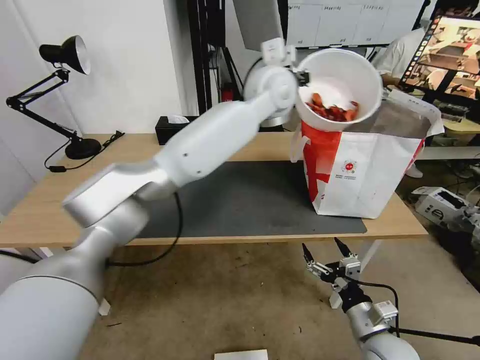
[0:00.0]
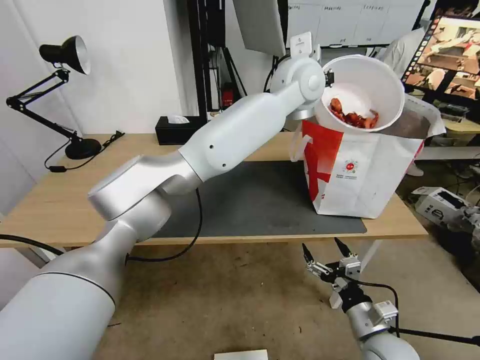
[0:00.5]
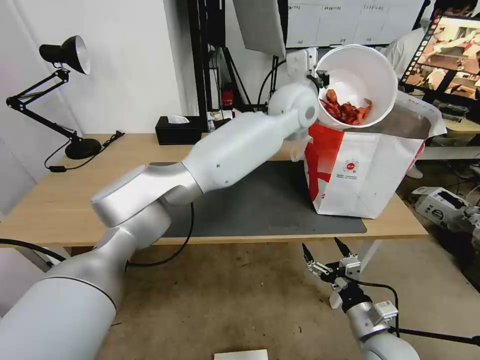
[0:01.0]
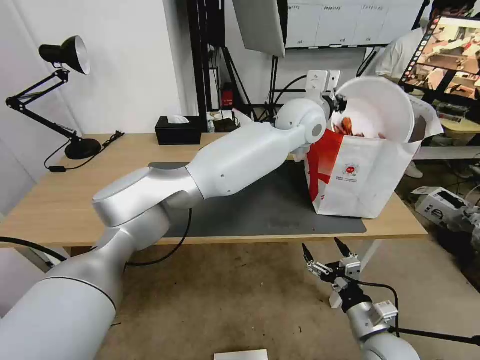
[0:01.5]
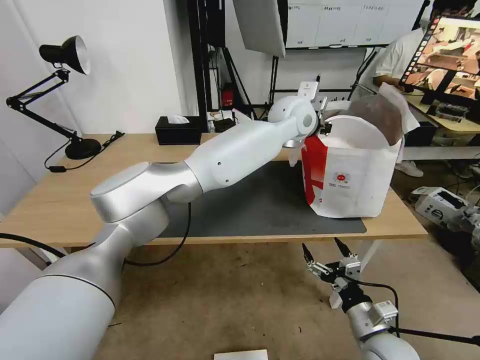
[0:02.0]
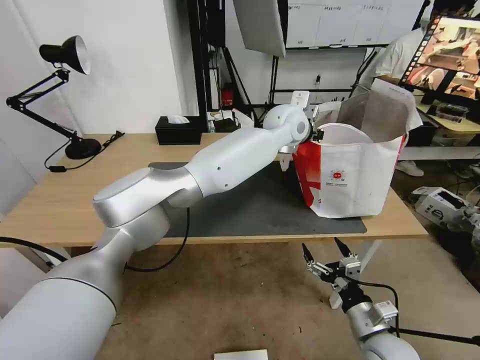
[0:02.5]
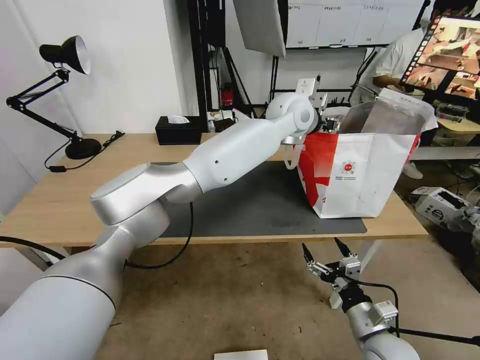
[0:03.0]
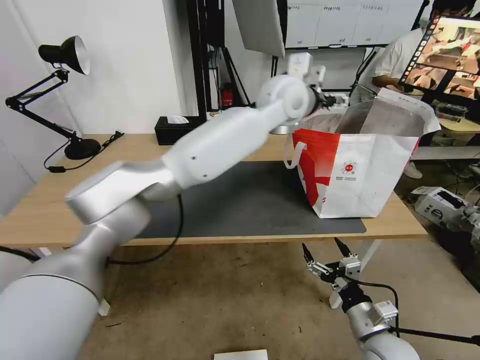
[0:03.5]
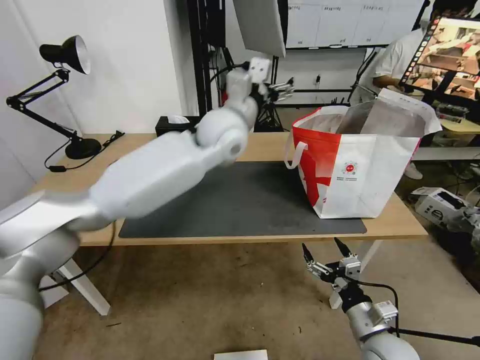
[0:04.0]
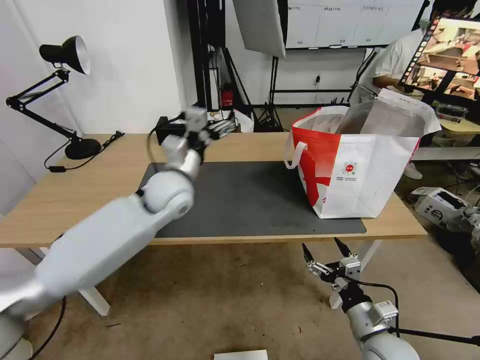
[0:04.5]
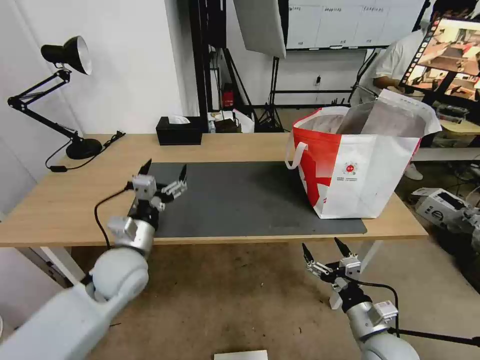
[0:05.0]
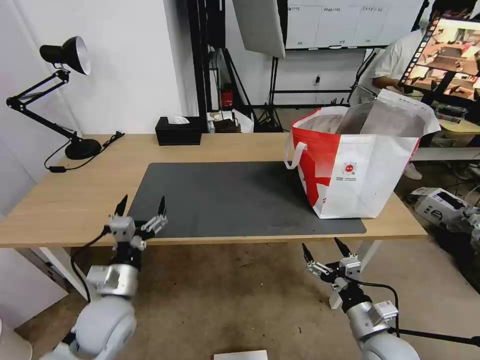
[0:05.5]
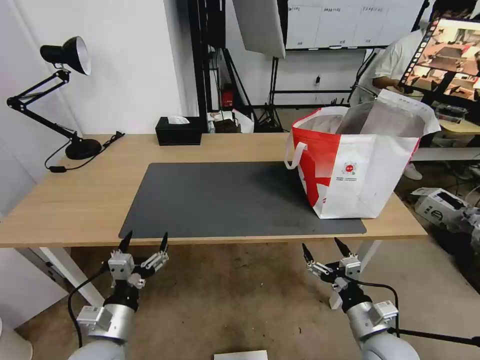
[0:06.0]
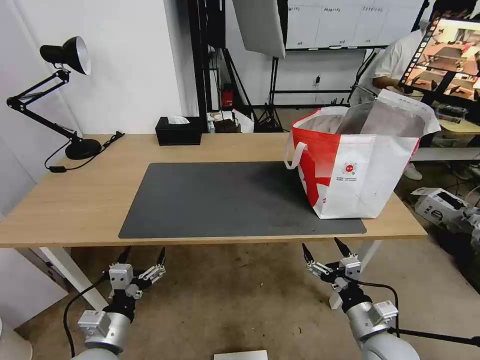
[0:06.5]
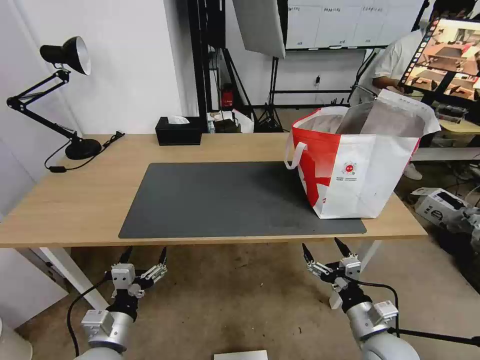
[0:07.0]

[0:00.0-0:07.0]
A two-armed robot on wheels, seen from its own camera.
Task of the whole recording: Pick up the trash from the table and place it into the takeout bag.
0:00.0 to 0:02.0: The left gripper moves downward and to the right, approximately 10 cm.
0:02.0 to 0:03.5: The left gripper changes place by some 5 cm, and opens its fingers.
0:03.5 to 0:05.0: The left gripper goes about 50 cm to the left, downward and backward.
0:05.0 to 0:07.0: The left gripper shifts about 20 cm backward and downward.

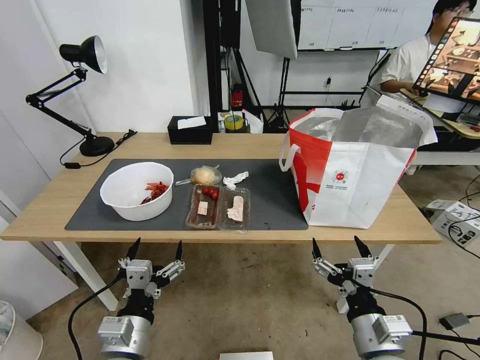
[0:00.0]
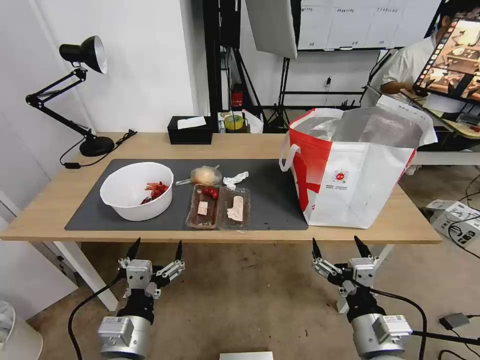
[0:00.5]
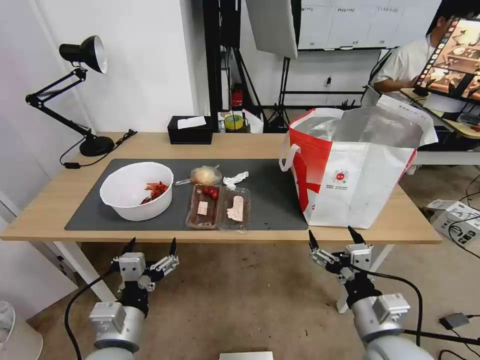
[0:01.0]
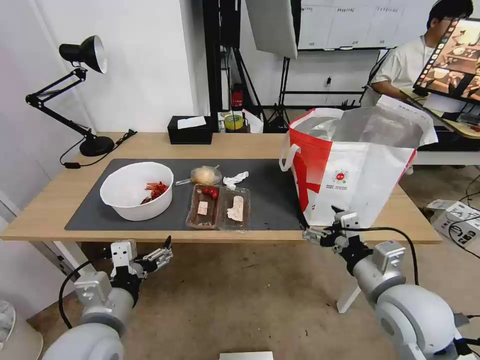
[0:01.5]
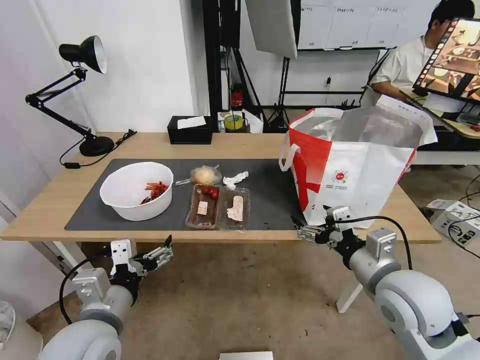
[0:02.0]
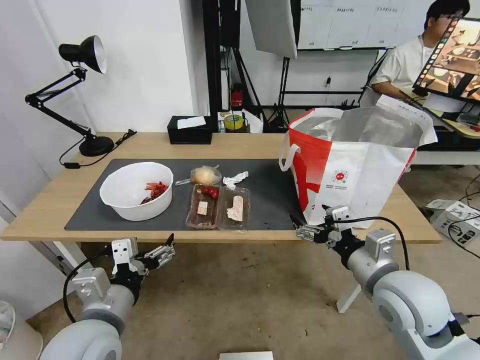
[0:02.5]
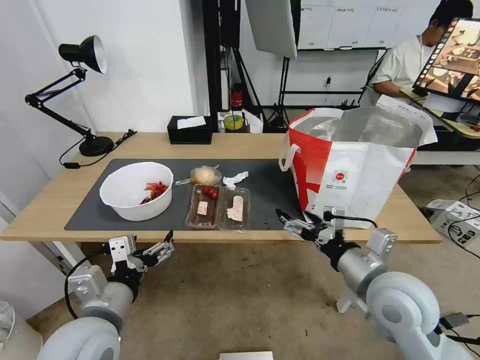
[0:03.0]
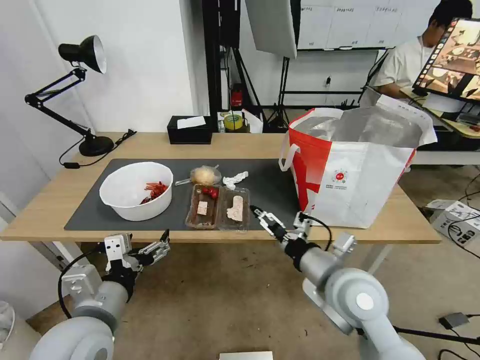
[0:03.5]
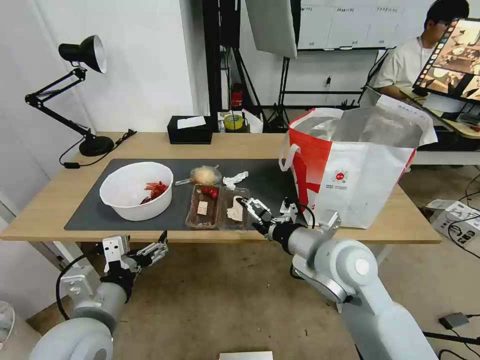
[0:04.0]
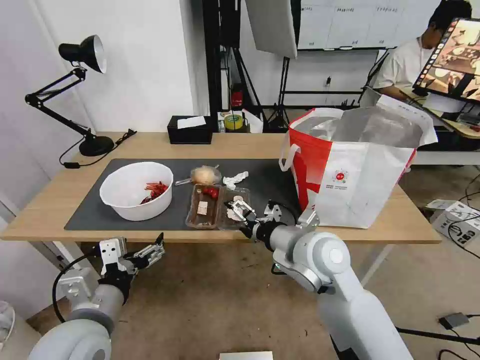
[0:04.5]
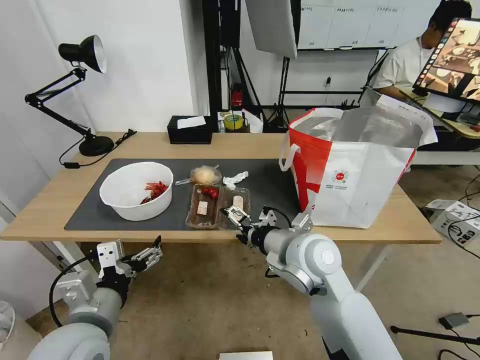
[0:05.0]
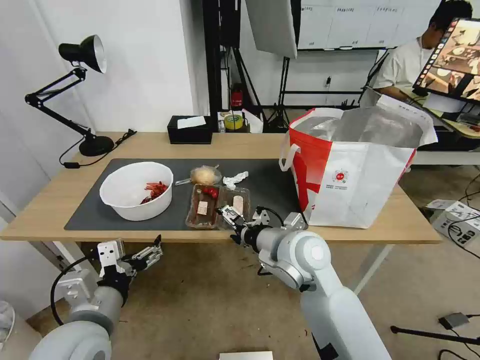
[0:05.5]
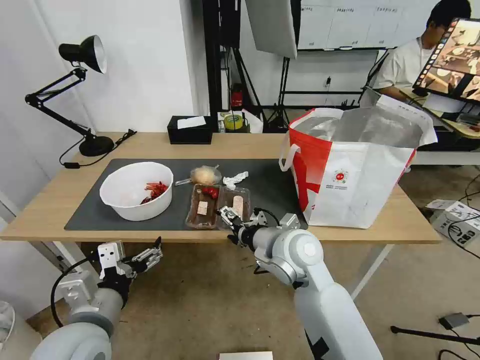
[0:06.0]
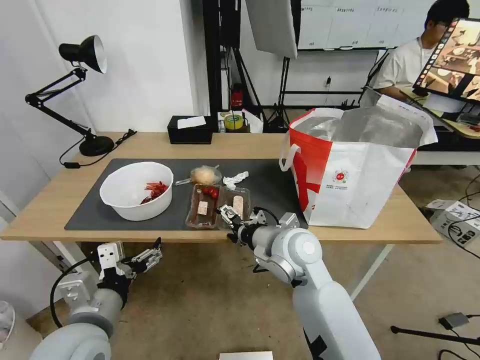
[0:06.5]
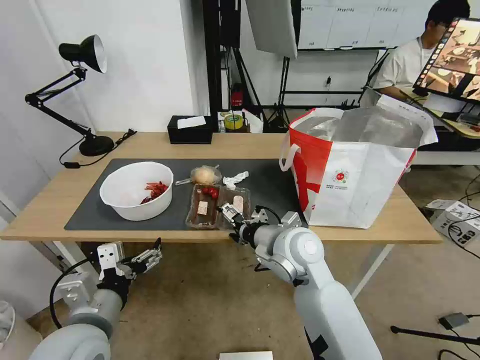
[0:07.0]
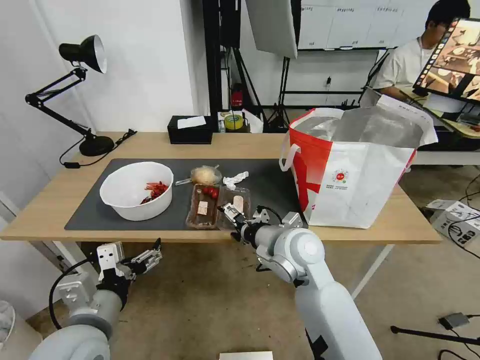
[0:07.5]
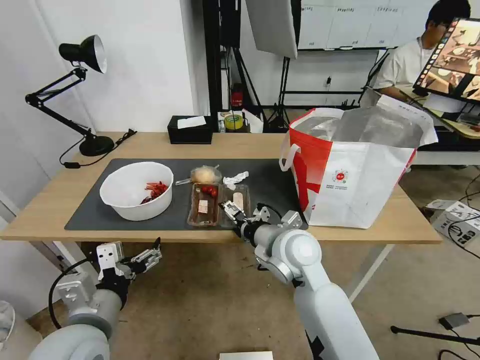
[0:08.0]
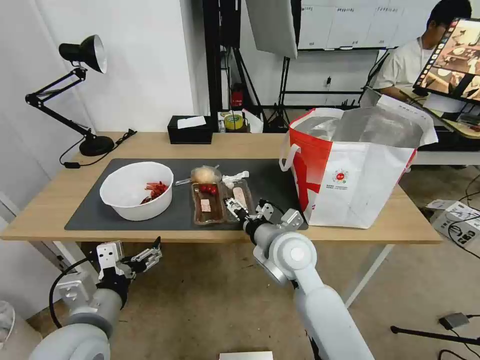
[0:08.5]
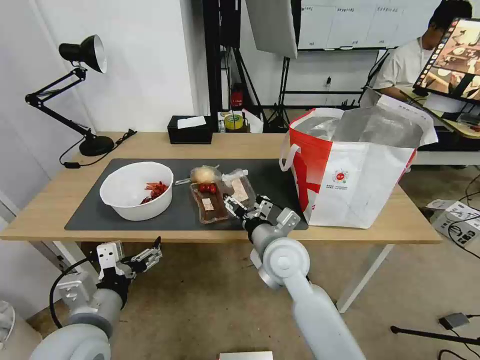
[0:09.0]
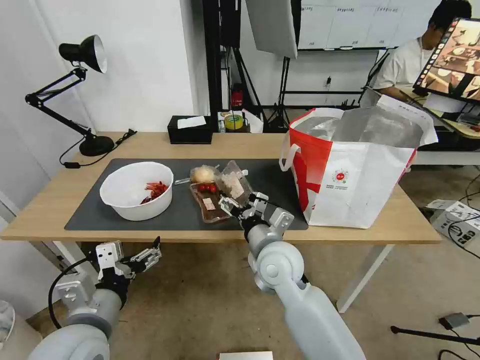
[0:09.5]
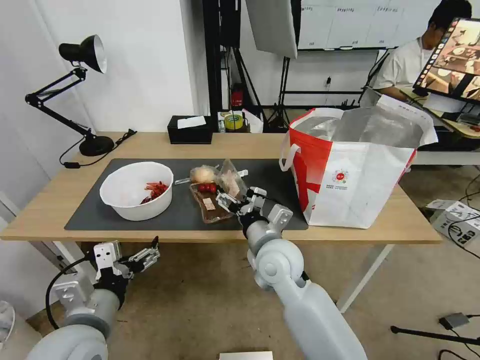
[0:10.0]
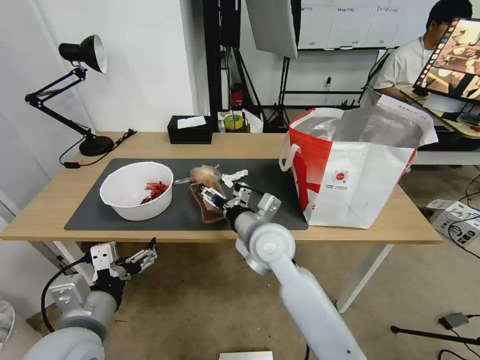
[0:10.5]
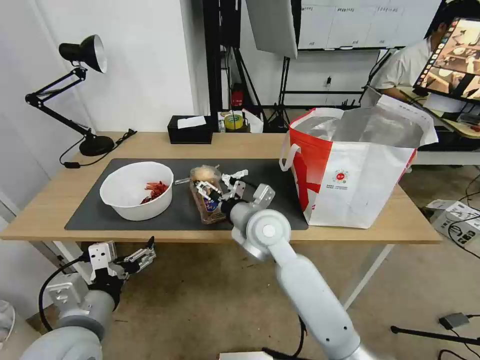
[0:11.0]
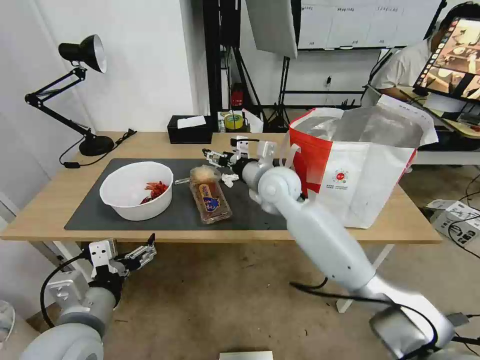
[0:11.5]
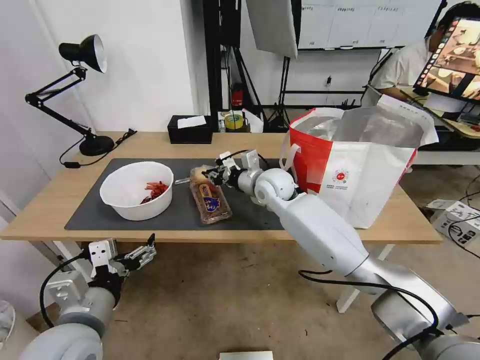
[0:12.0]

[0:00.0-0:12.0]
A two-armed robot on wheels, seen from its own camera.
Task of the whole recording: Pick up the trash from the table and place it into the takeout bag.
0:02.0 to 0:04.0: The right gripper shifts roughly 10 cm to the left and forward.
0:04.0 to 0:06.0: The right gripper heads to the left, covering about 5 cm.
0:06.0 to 0:08.0: There are only small adjustments of the grippers.
0:10.0 to 0:12.0: The right gripper goes approximately 20 cm forward, and closes its fingers.

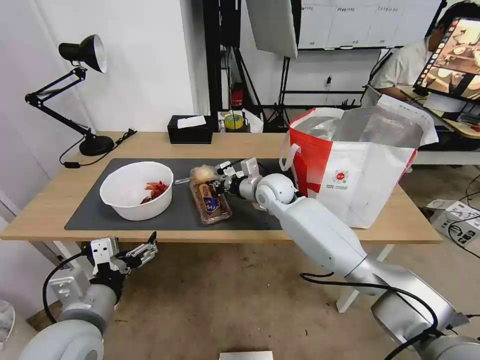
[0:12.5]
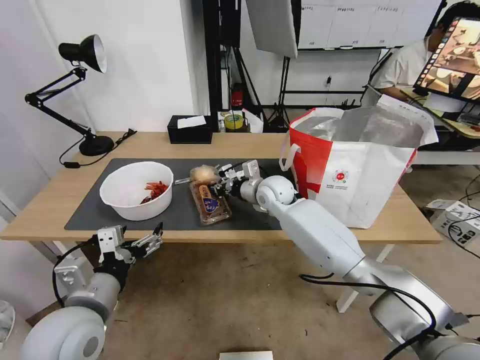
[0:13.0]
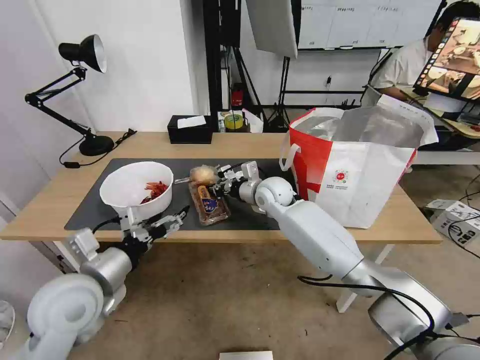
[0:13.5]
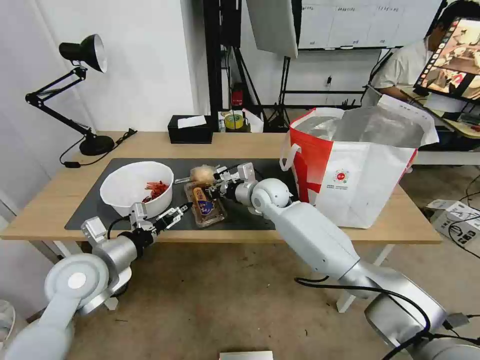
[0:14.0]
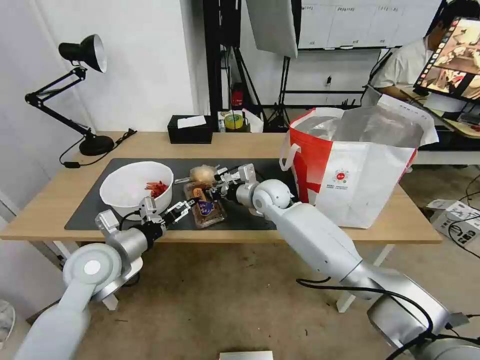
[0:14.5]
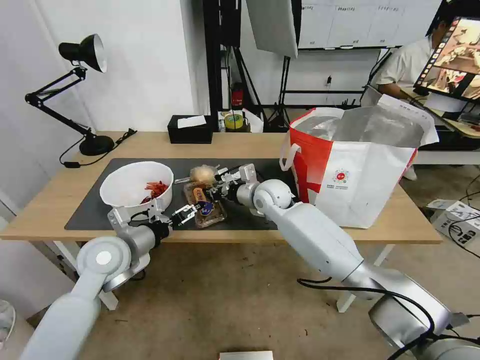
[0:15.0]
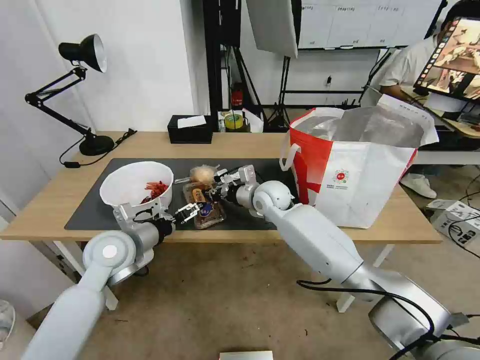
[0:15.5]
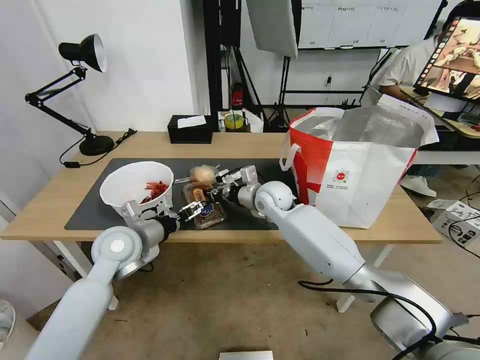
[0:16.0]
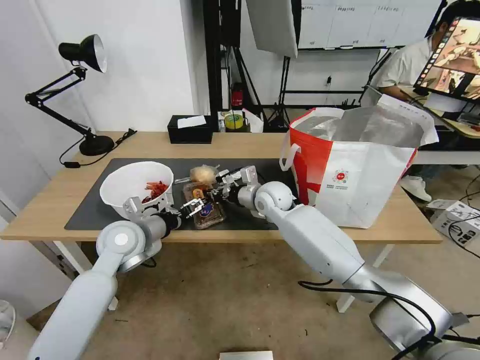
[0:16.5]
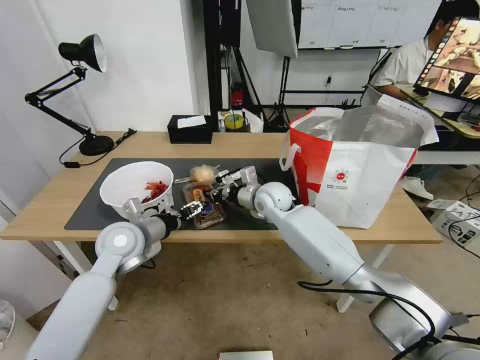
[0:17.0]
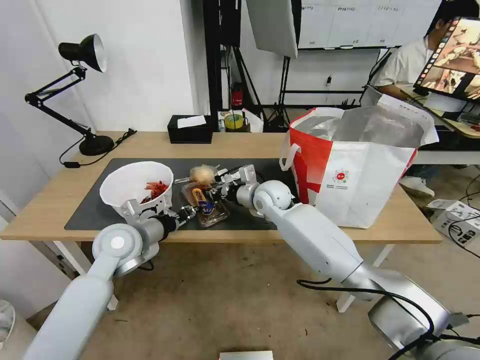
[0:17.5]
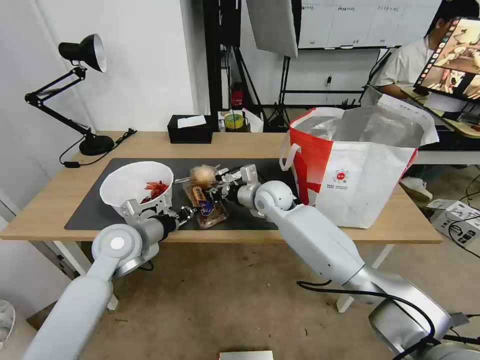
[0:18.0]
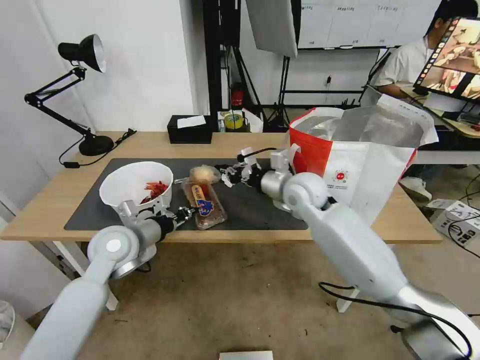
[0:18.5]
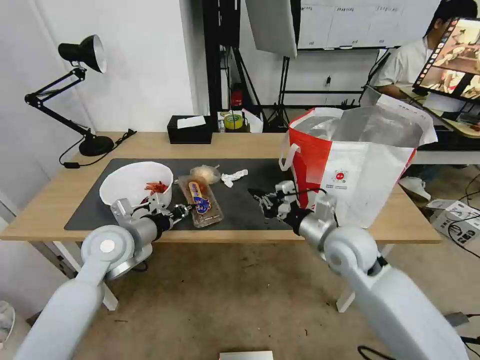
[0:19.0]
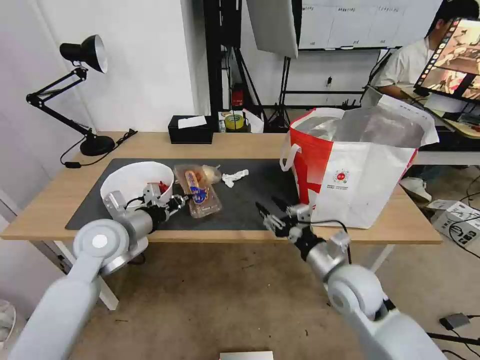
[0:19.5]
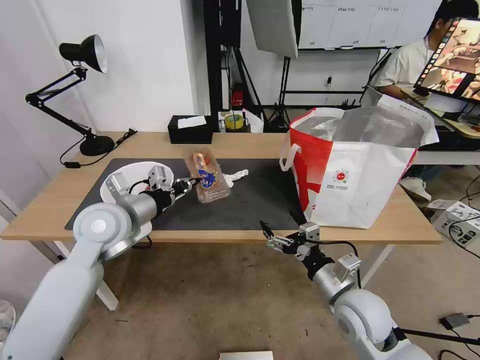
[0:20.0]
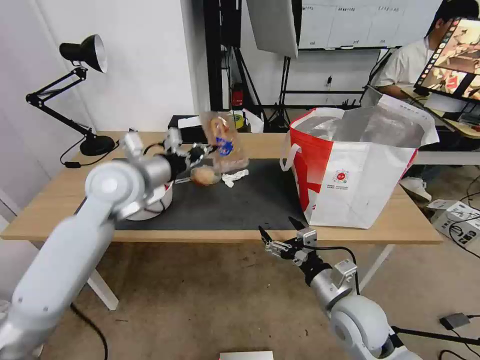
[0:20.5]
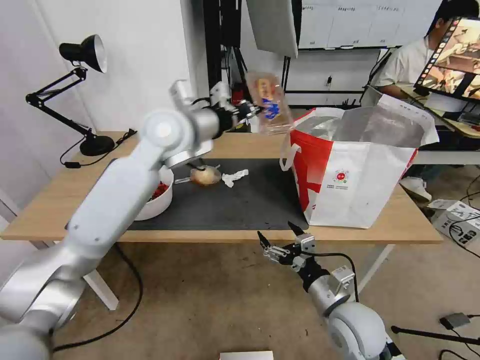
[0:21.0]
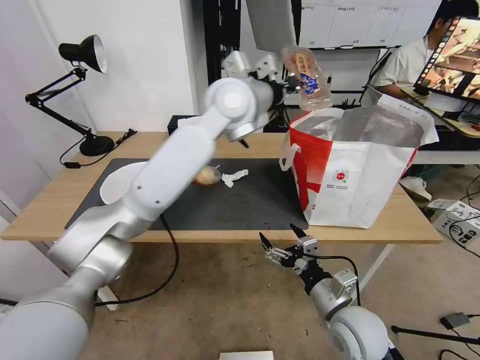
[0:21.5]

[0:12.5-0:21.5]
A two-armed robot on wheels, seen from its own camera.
Task of the whole recording: Pick up the trash from the table and place it into the takeout bag.
0:12.5 to 0:14.5: The left gripper heads forward, covering about 15 cm.
0:14.5 to 0:17.0: The left gripper heads forward, covering about 5 cm.
0:17.0 to 0:19.5: The right gripper moves backward and to the right, approximately 25 cm, and opens up. The left gripper closes its fingers.
0:19.5 to 0:21.5: The left gripper travels to the right, upward and forward by roughly 35 cm; the right gripper is displaced backward by some 5 cm, and opens.
